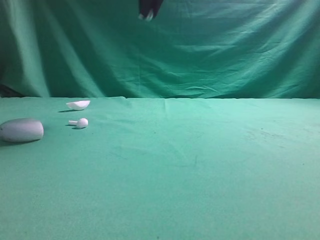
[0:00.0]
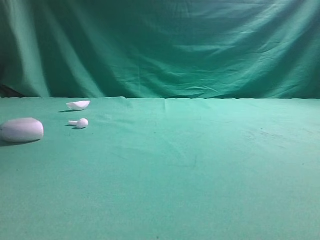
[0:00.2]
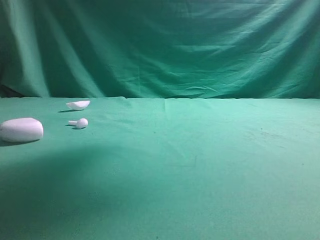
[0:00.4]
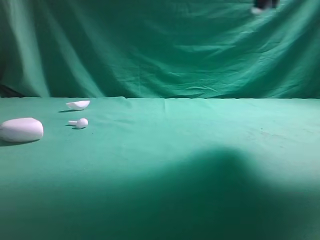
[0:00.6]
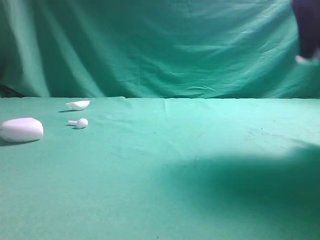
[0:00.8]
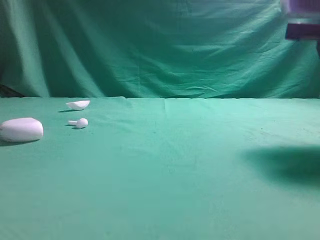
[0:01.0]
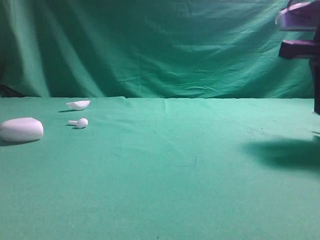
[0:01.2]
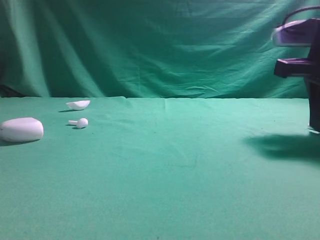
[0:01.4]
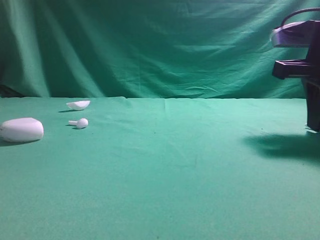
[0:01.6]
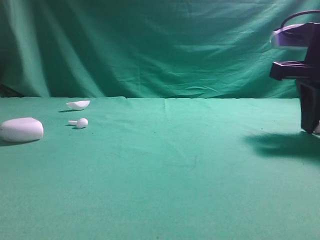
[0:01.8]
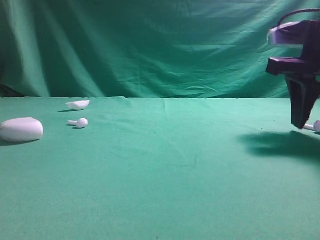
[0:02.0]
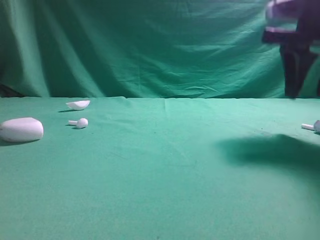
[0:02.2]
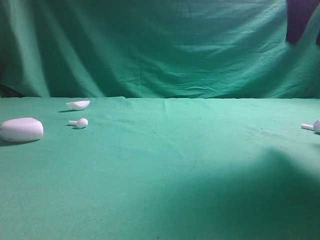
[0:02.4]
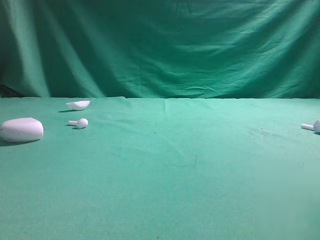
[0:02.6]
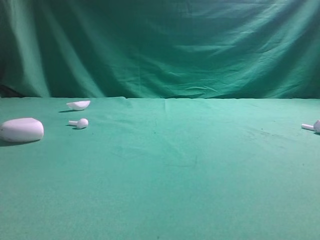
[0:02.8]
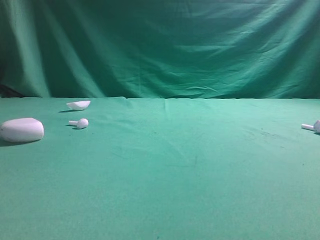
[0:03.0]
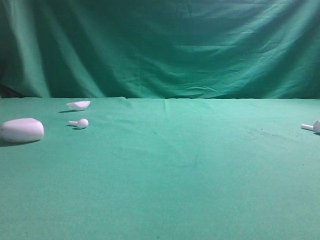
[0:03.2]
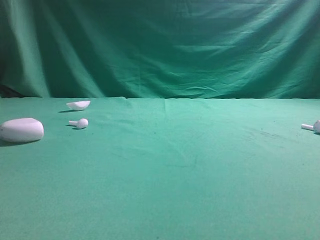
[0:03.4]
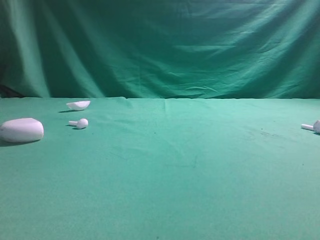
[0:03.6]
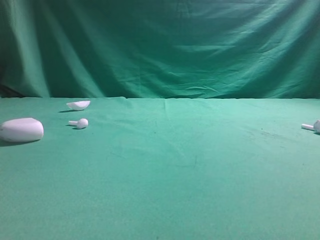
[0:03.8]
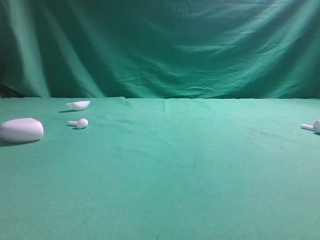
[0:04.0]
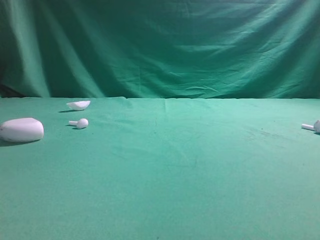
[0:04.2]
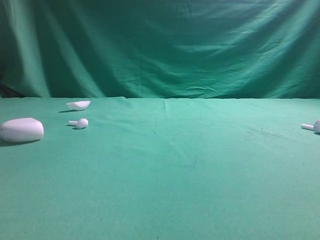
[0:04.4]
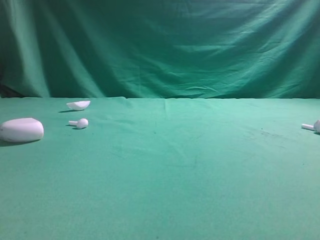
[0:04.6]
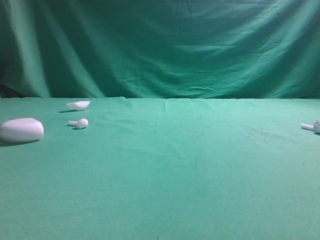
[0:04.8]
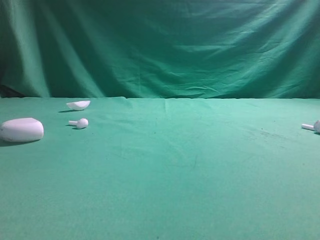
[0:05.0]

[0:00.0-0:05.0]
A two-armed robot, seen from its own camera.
Step, 0:00.0 to 0:02.2: Place bluetooth earbud on the right side of the table.

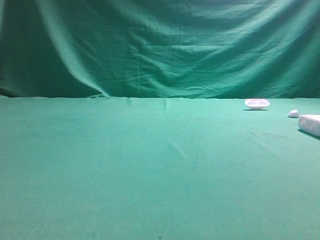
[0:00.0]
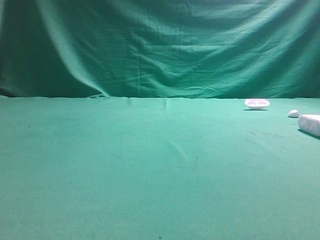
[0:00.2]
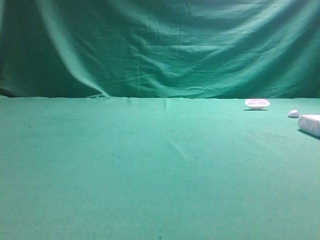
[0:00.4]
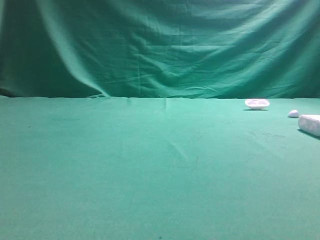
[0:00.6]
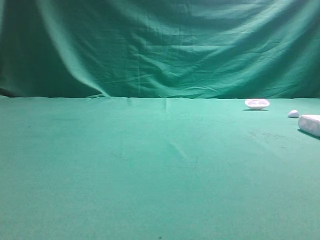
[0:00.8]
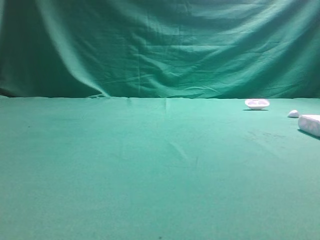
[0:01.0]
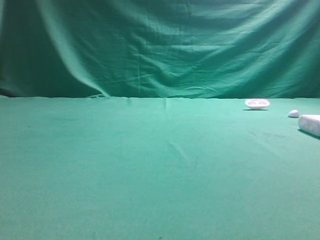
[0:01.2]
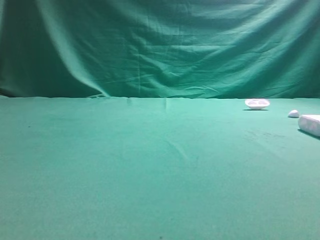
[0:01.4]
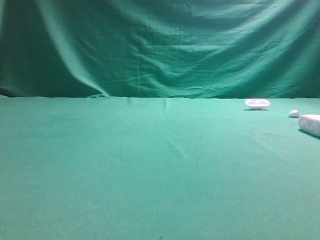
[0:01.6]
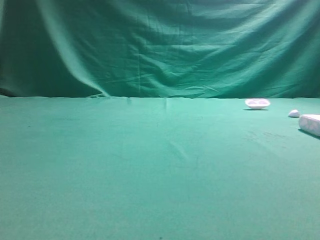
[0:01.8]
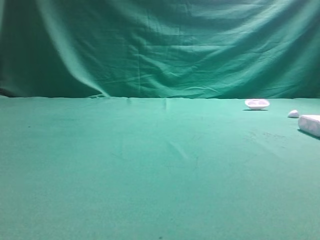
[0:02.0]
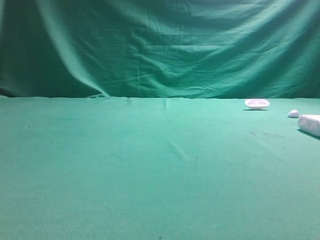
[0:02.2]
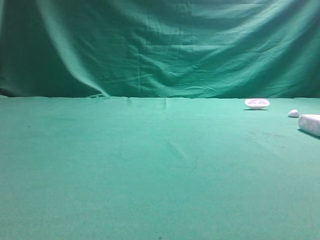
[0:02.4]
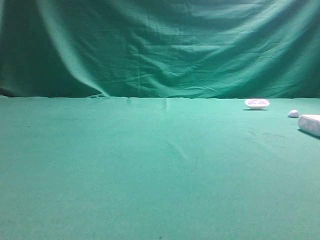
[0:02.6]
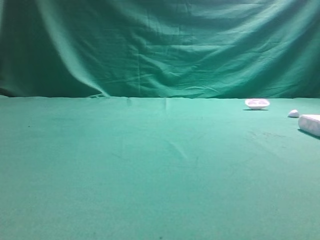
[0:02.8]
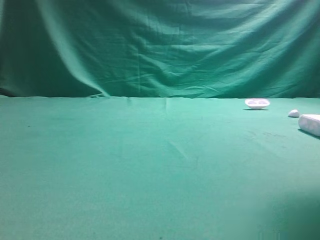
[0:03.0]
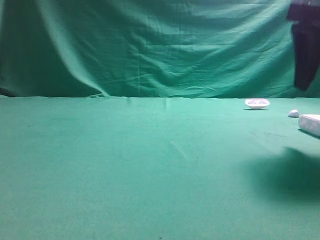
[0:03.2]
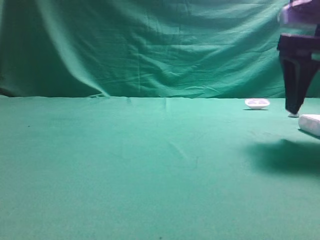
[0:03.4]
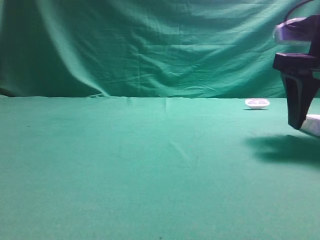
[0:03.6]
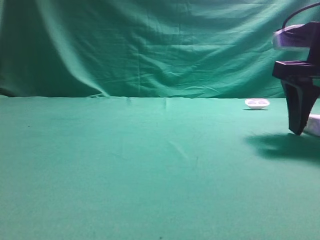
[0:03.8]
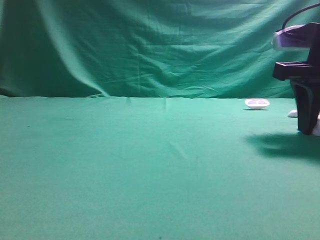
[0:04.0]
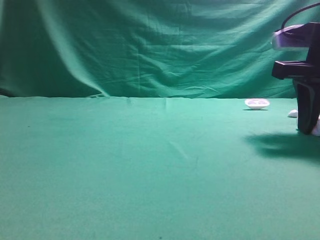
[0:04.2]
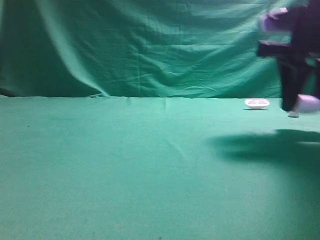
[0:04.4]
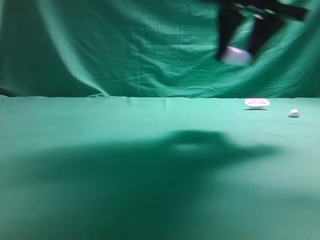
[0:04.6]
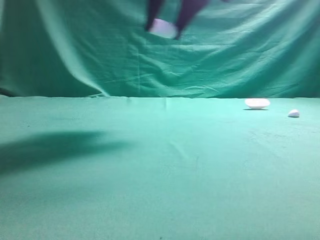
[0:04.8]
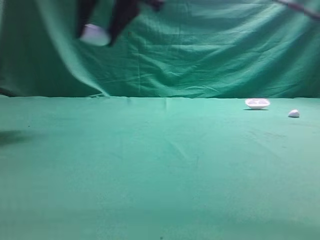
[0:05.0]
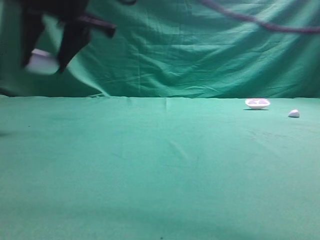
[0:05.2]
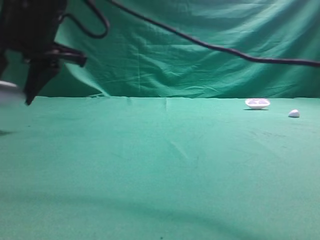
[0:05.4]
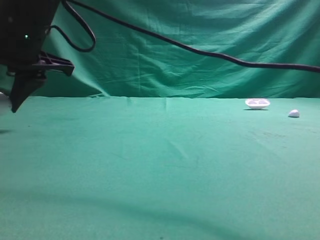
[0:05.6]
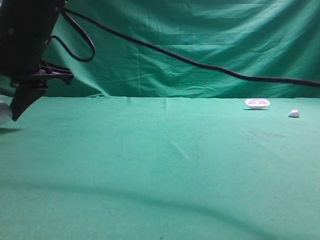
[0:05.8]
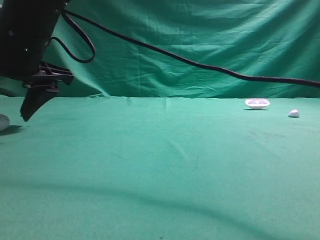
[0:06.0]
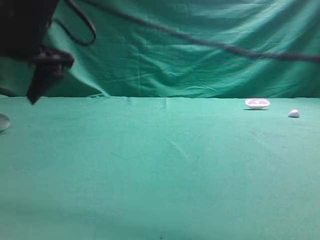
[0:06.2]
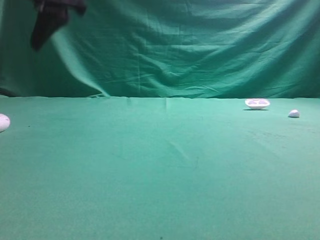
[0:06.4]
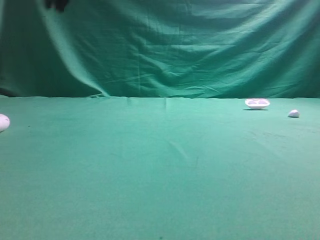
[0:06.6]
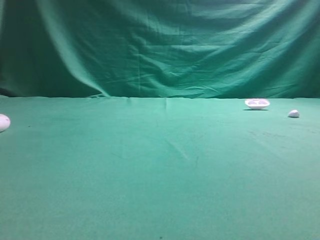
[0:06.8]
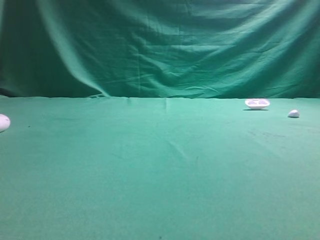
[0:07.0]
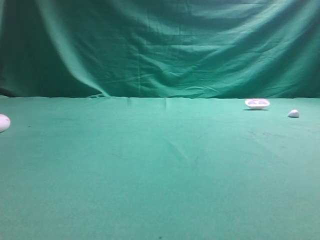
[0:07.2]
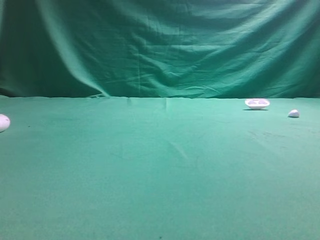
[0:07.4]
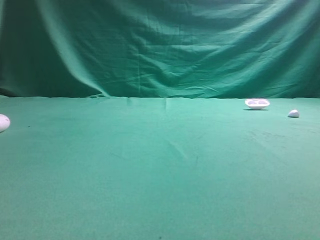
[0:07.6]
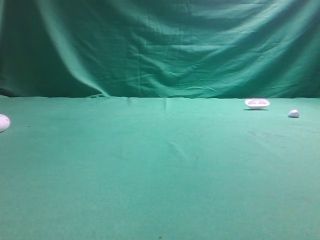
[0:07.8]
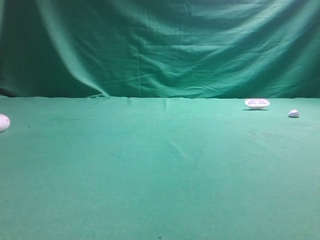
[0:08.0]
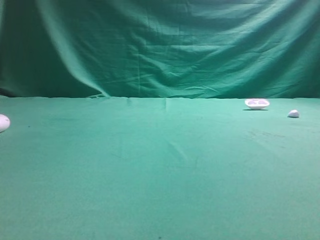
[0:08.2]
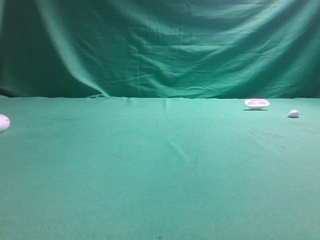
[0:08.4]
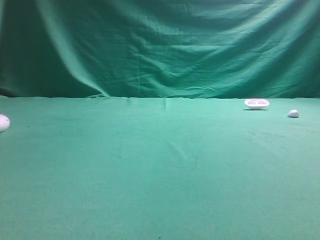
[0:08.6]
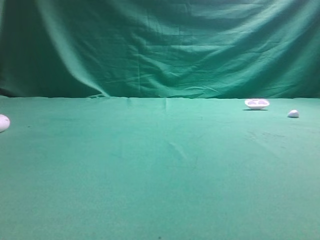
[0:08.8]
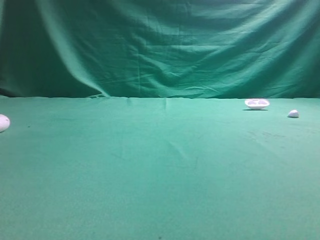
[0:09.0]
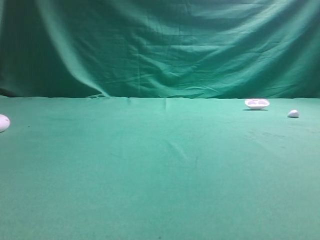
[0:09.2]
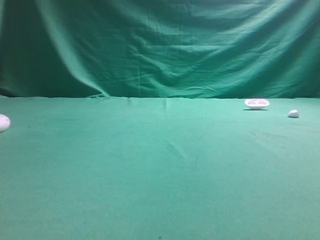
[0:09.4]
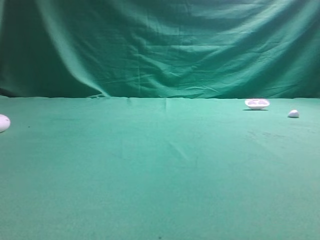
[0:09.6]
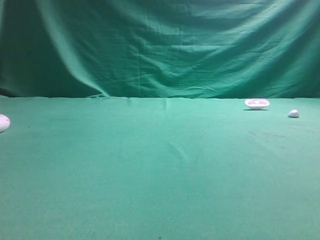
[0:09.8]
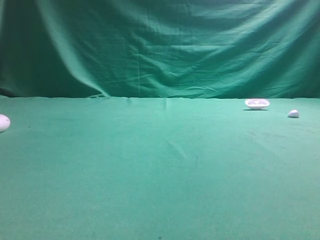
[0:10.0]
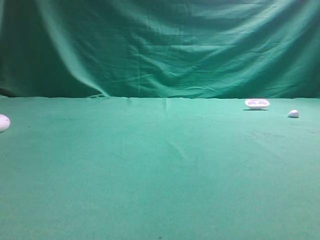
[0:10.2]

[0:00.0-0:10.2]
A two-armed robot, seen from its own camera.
Step, 0:00.0 to 0:04.4: Grasp the Bluetooth earphone case.
Step, 0:04.6 to 0:06.2: Place bluetooth earphone case on the left side of the table.
